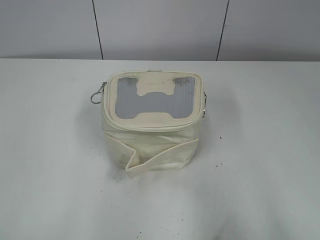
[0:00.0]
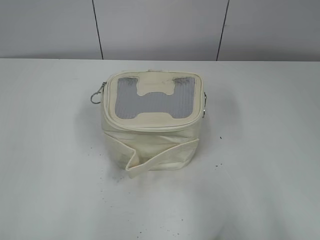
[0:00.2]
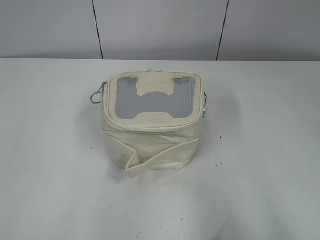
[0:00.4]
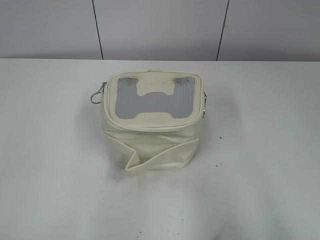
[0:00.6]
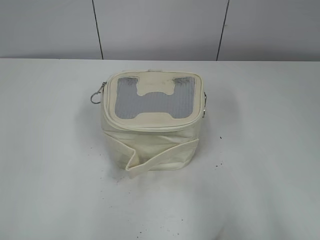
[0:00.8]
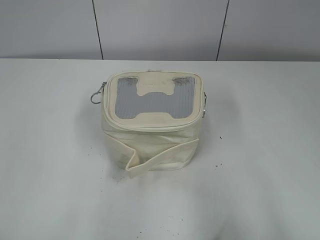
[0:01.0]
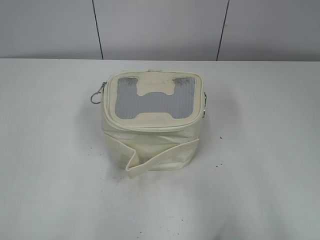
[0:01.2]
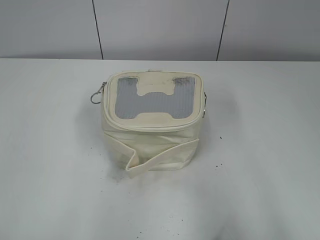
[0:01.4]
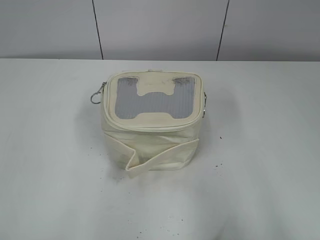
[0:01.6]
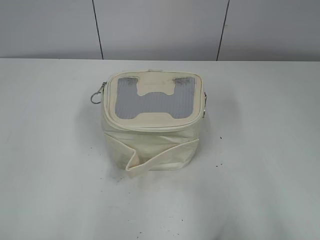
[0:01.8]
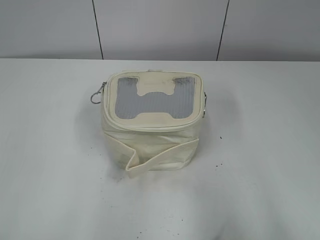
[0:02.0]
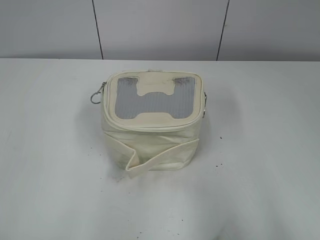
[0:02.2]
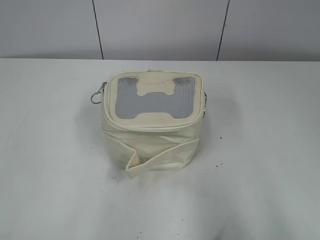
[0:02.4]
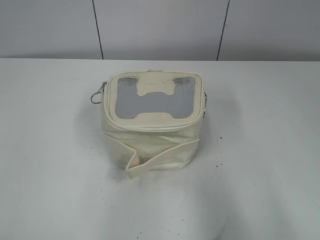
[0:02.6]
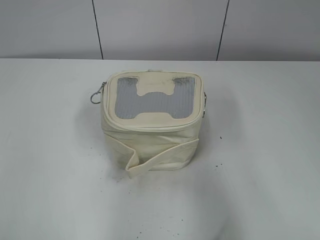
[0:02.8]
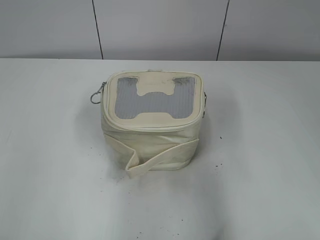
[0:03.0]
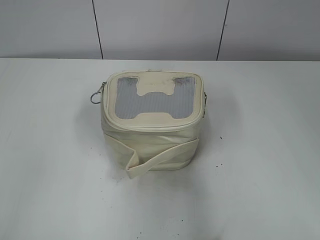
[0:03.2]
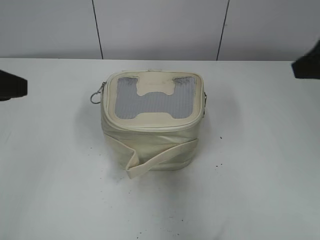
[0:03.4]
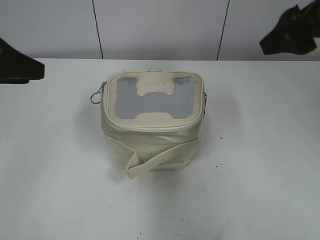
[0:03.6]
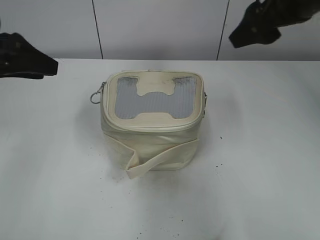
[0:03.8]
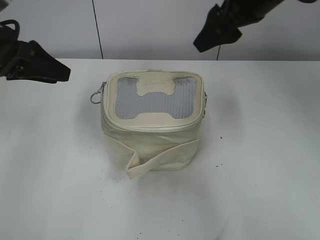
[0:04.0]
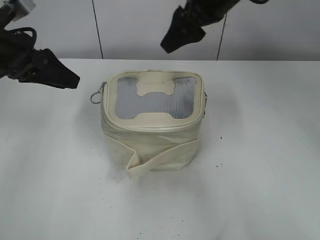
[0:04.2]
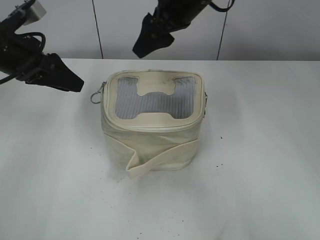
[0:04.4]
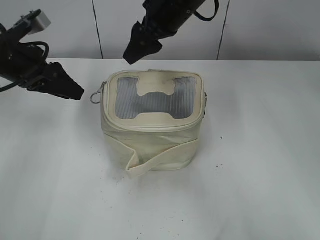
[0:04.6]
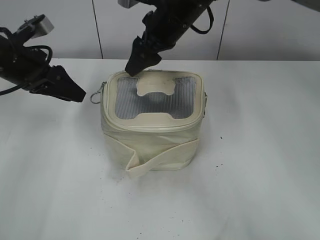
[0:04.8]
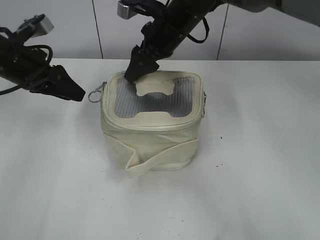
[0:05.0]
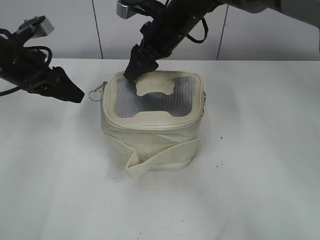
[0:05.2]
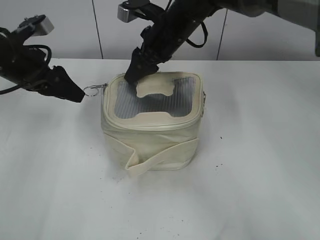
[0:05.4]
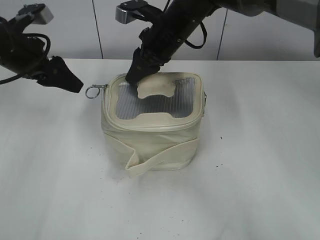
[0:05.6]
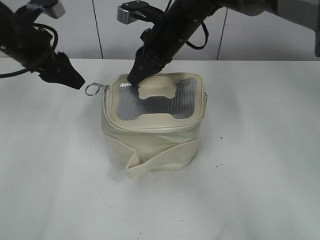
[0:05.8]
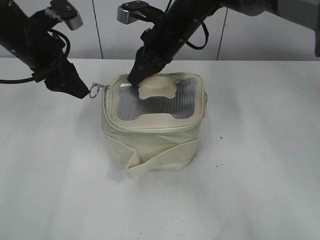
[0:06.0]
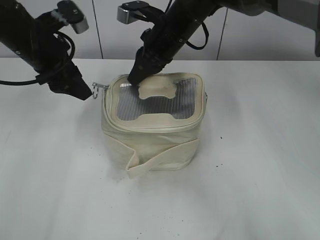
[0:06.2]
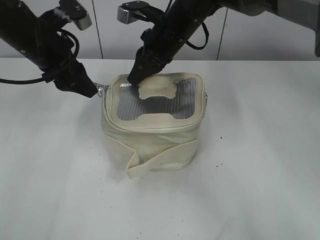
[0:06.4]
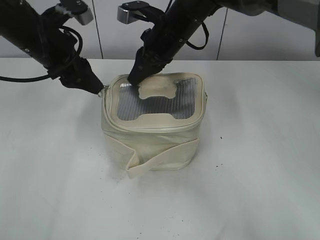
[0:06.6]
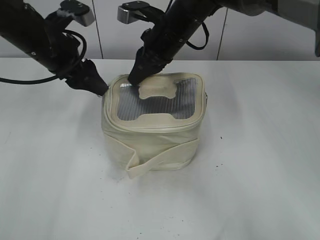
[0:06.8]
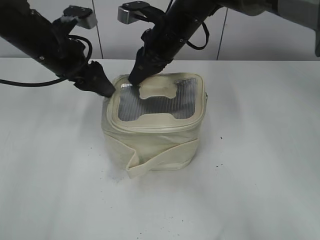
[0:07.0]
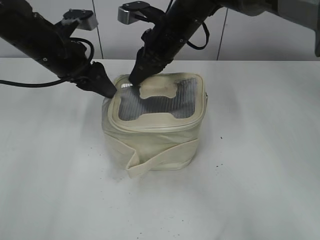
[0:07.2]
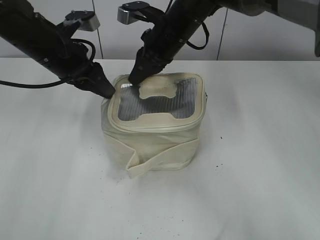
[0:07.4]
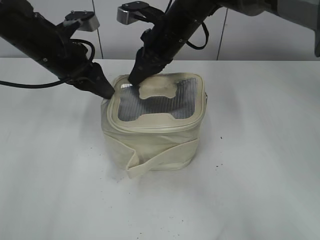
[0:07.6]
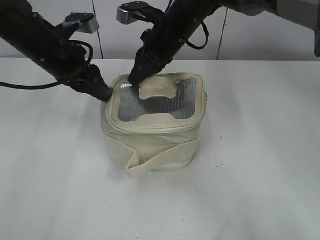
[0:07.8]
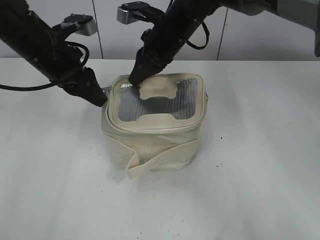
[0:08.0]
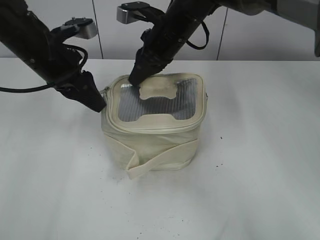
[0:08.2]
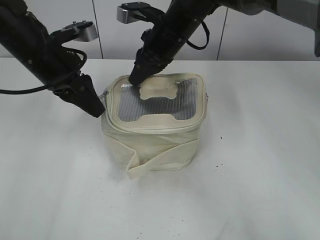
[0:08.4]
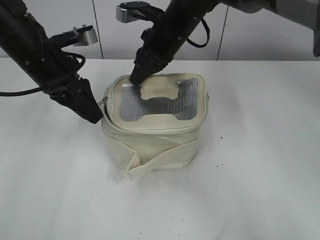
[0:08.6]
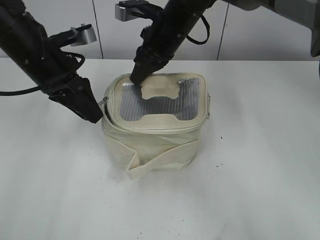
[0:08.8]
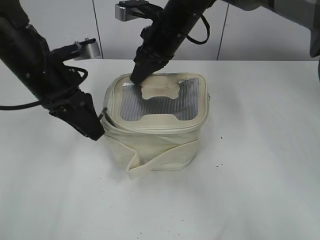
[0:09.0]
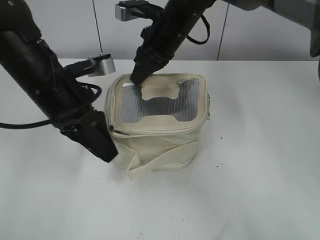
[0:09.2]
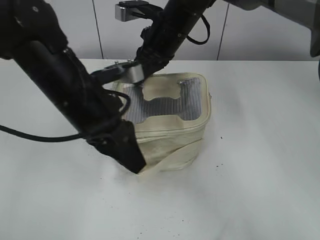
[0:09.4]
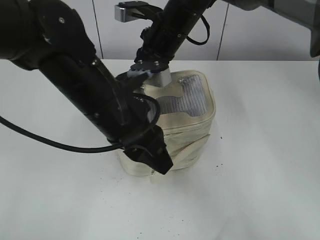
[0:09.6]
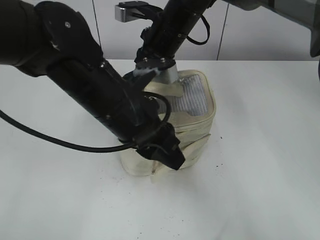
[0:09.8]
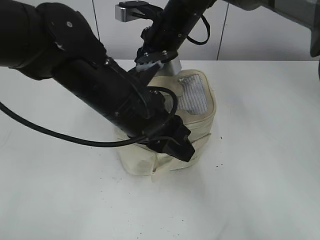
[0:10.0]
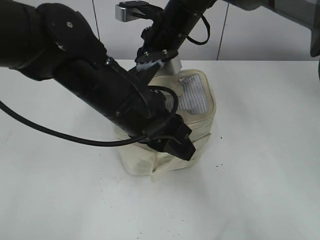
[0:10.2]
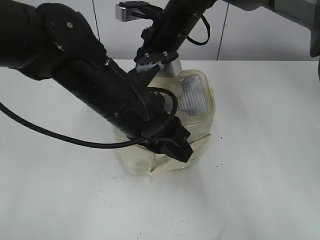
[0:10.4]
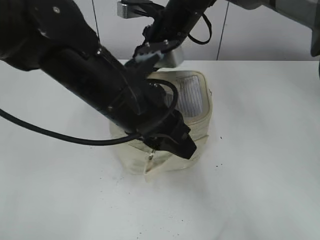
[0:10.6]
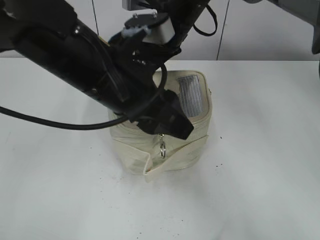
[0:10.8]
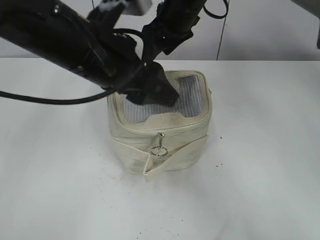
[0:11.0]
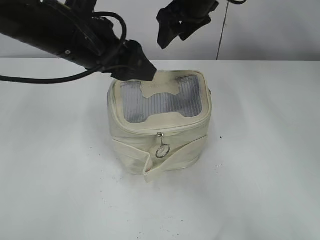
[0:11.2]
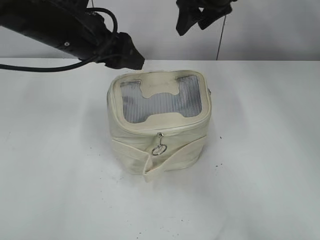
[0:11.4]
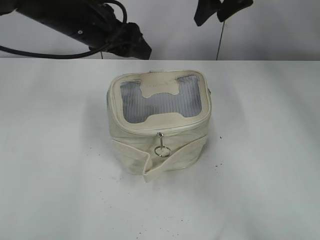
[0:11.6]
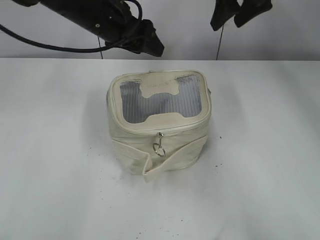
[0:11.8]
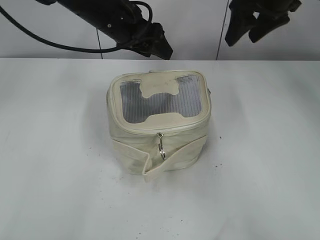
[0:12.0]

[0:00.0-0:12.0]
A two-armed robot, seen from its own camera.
Step, 0.0 to 10.6 s: Zip up the bag with your left hand.
1.6 to 3.0 s: The grippers both shift forward by about 10 cm.
3.0 to 4.4 s: The left gripper moves forward, roughly 25 cm, while the right gripper goes roughly 40 cm forward and to the left.
4.4 to 6.0 s: The right gripper is displaced downward by roughly 10 cm, and closes up.
6.0 to 7.6 s: The left gripper closes up.
7.6 to 9.0 s: The left gripper is displaced backward by roughly 5 cm.
9.0 to 10.4 s: The left gripper is displaced to the right and backward by some 15 cm.
10.4 to 12.0 s: The left gripper goes approximately 15 cm forward, and opens up; the right gripper goes roughly 20 cm to the right and upward, and opens its fingers.

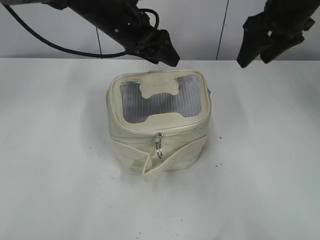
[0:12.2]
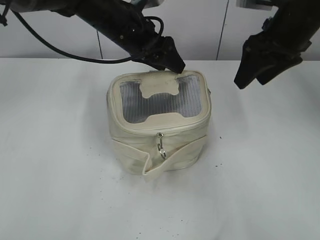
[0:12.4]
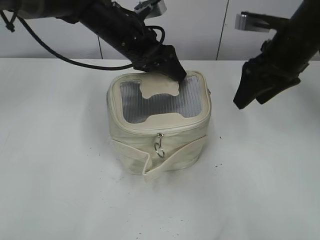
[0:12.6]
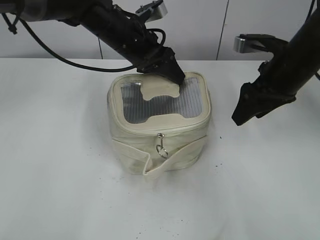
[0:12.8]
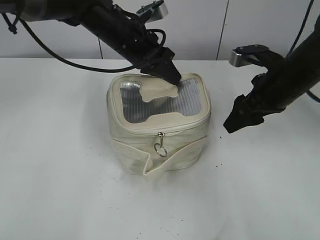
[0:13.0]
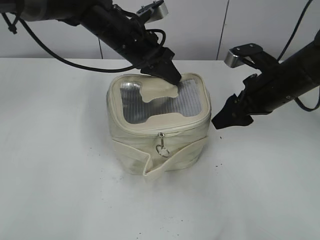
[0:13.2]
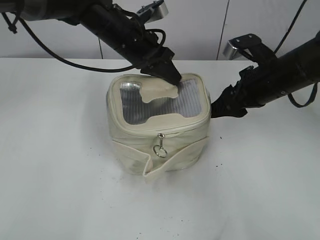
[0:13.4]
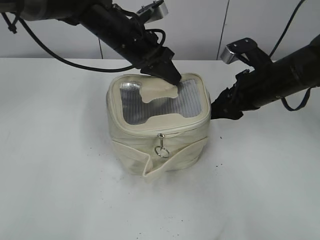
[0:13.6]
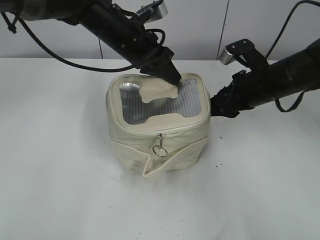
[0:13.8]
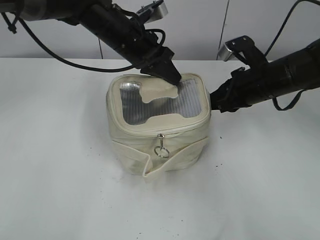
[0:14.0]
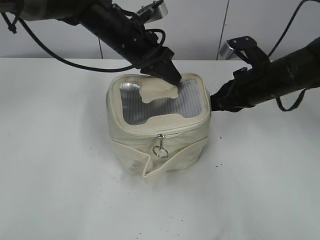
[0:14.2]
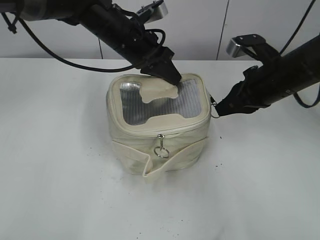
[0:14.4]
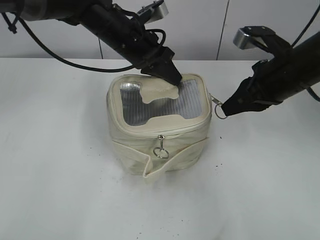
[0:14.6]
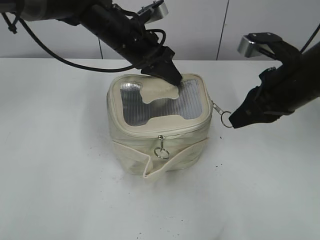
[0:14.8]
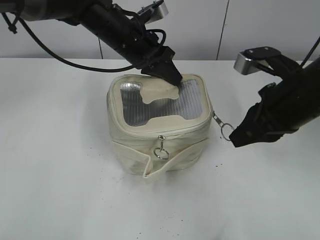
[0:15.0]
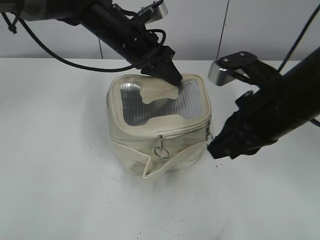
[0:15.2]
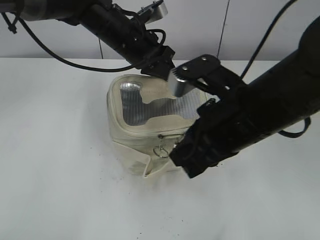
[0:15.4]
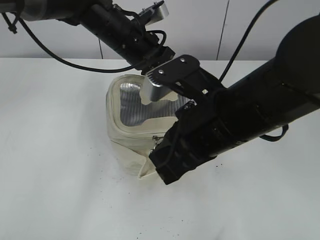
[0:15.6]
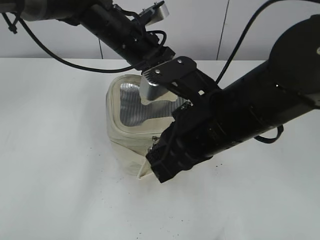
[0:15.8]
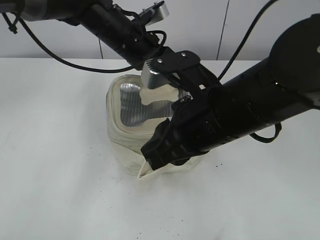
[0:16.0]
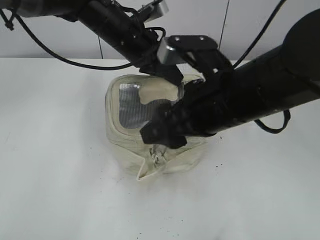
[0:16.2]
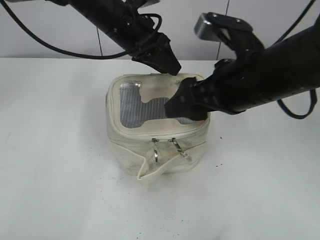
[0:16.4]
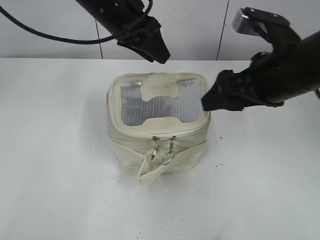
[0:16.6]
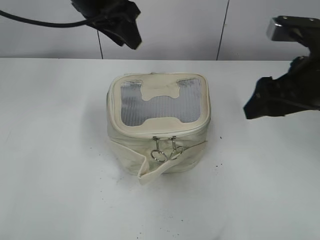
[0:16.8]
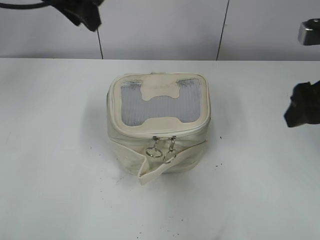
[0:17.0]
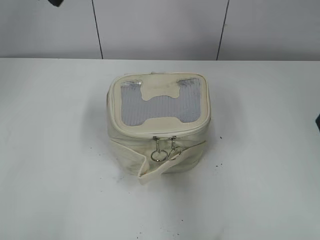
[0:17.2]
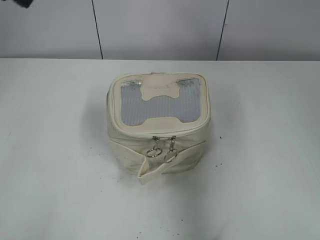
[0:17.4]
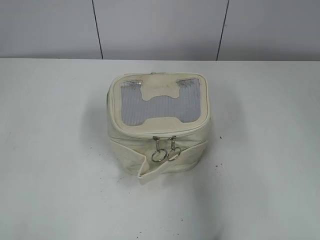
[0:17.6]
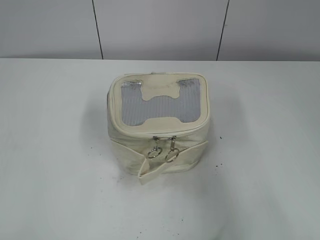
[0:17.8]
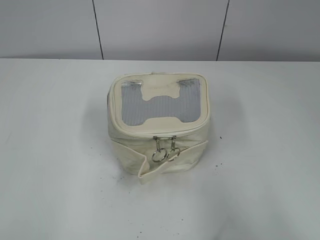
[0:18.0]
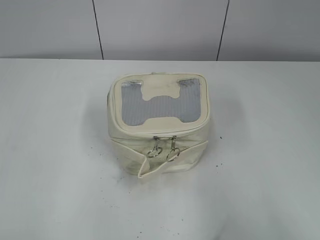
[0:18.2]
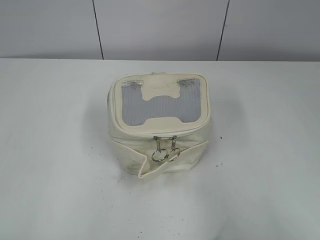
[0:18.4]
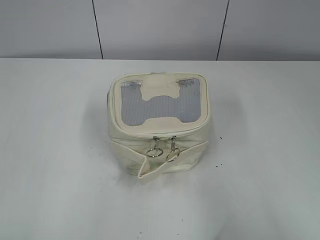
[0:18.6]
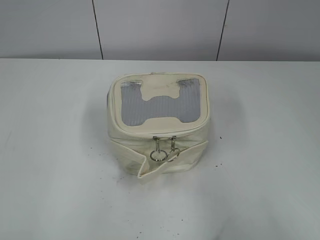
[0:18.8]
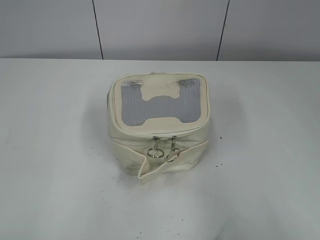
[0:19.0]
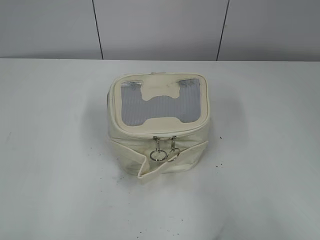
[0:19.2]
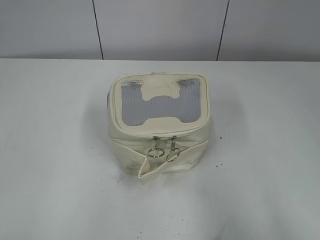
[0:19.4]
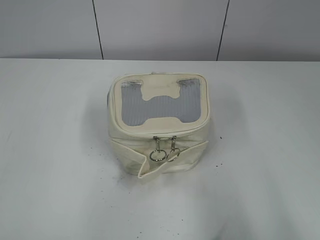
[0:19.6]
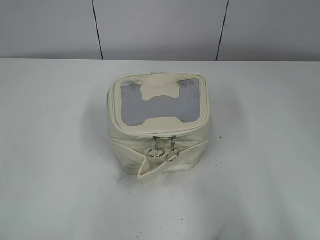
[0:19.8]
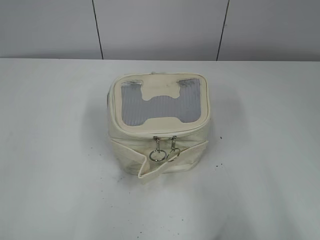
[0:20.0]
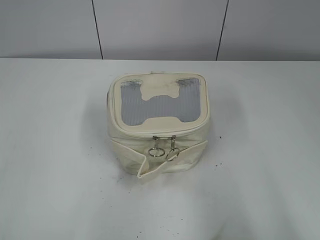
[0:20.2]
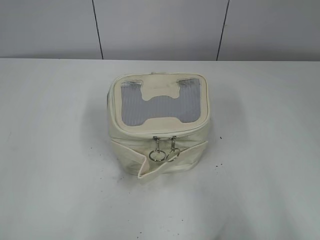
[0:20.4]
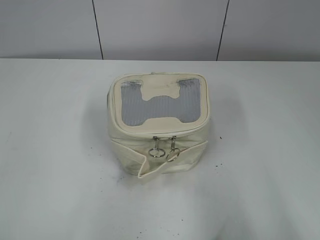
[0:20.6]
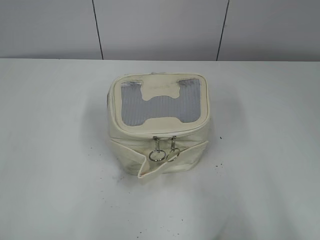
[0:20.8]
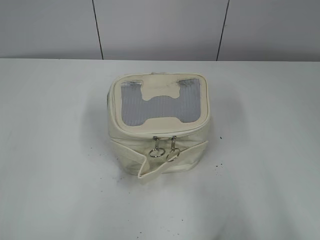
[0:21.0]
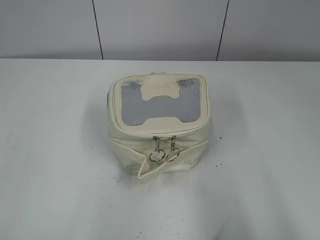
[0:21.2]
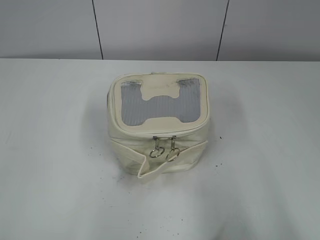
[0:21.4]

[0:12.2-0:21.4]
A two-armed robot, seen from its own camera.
Step, 12.2 to 16.0 s: Zip up the bag with your right hand.
12.2 to 13.8 s: The left gripper closes up; the right gripper goes approximately 15 cm downward and backward.
13.8 to 15.2 s: The right gripper goes some 15 cm backward and upward, and closes its fingers.
15.2 to 16.8 s: The right gripper travels to the left and back again, some 10 cm each way, and opens up. Meanwhile the left gripper moves upward, about 10 cm, and opens up.
16.8 to 18.4 s: The right gripper is displaced backward by approximately 25 cm; the left gripper shifts about 40 cm backward and to the left.
19.8 to 21.4 s: The two grippers keep their place.

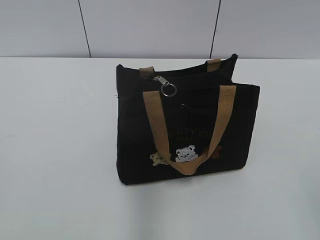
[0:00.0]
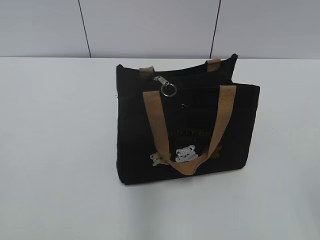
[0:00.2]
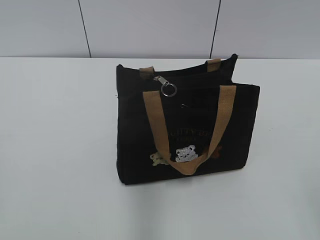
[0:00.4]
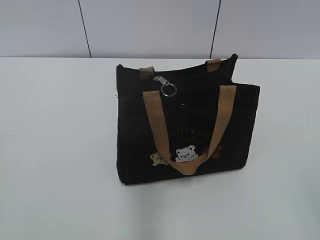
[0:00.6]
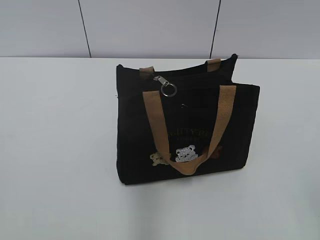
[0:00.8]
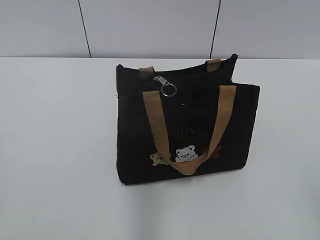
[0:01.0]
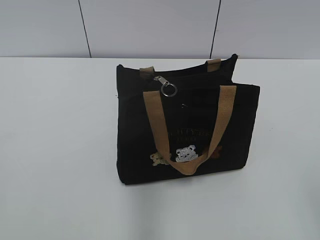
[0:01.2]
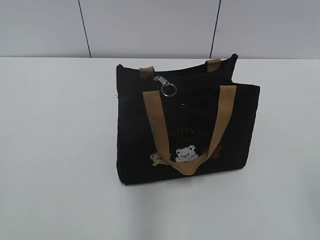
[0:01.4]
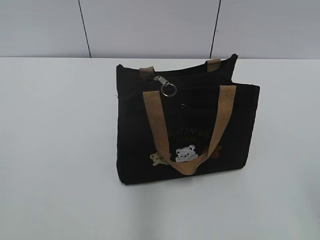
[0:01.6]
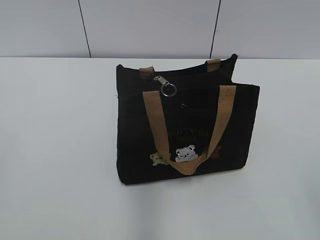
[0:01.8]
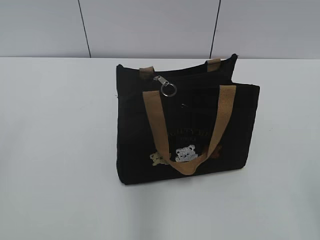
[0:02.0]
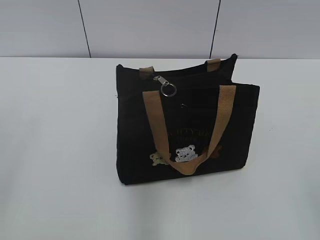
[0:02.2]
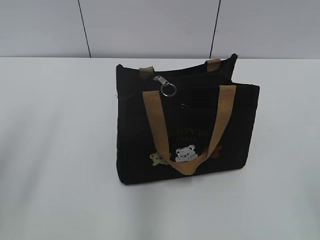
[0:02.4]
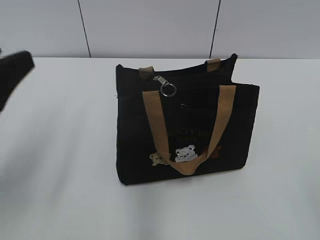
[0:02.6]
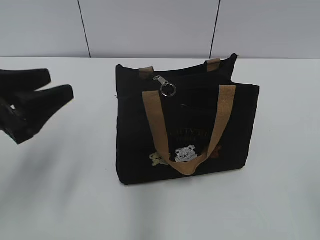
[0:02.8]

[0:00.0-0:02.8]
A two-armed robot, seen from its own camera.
1.4 to 2.8 s: The left gripper is displaced forward by approximately 20 cm.
